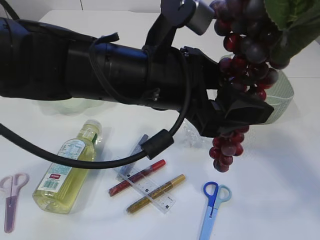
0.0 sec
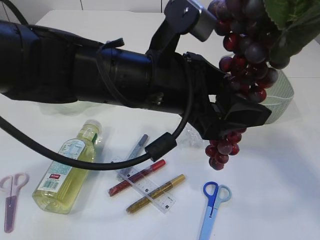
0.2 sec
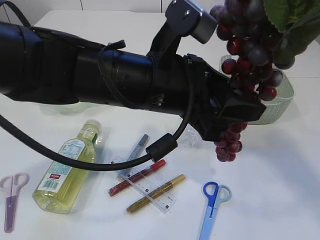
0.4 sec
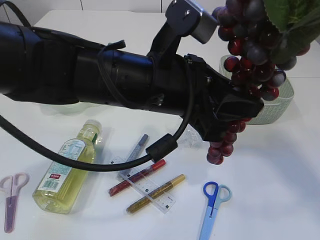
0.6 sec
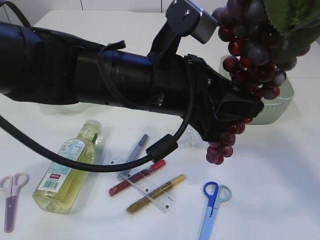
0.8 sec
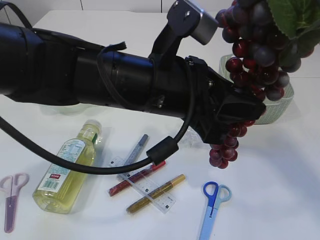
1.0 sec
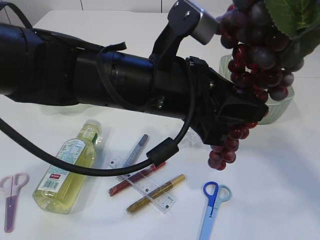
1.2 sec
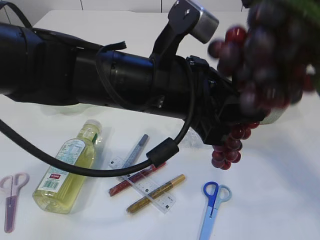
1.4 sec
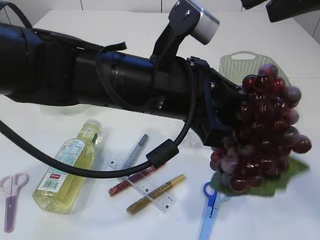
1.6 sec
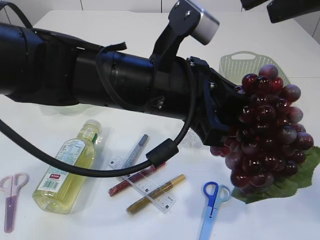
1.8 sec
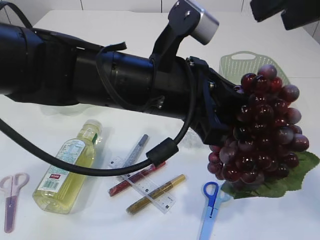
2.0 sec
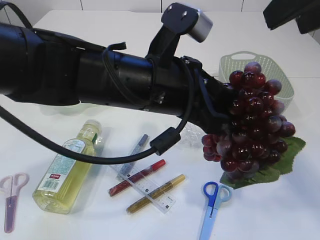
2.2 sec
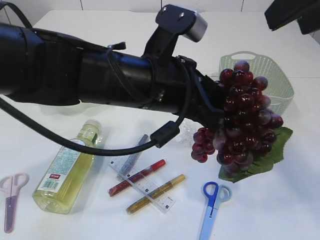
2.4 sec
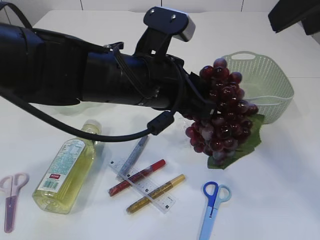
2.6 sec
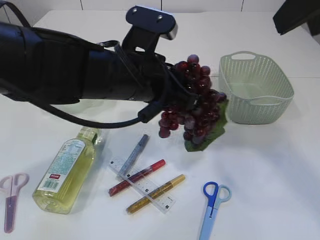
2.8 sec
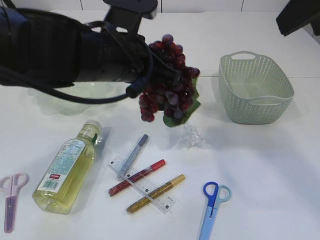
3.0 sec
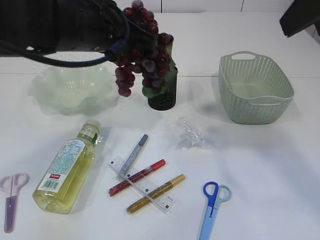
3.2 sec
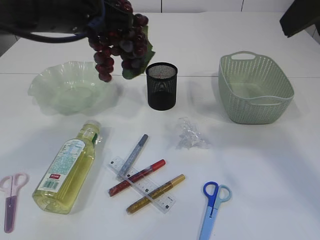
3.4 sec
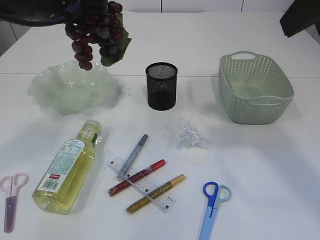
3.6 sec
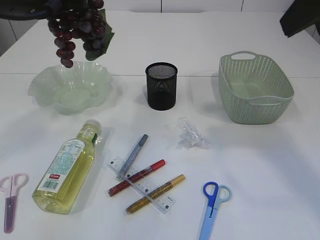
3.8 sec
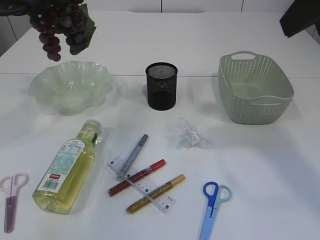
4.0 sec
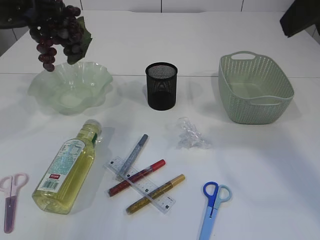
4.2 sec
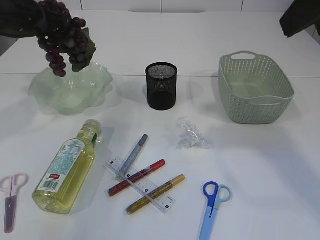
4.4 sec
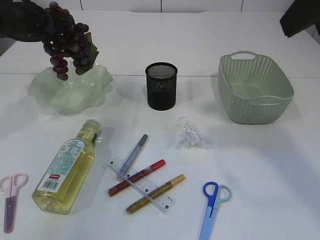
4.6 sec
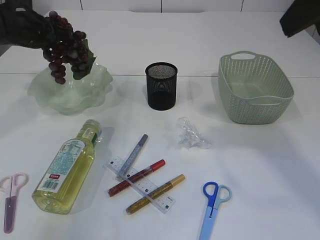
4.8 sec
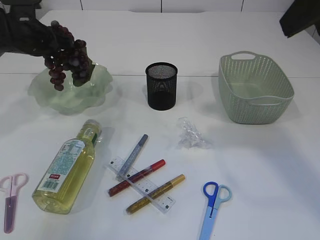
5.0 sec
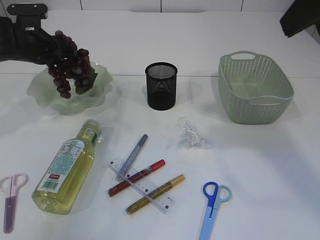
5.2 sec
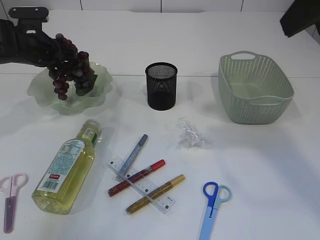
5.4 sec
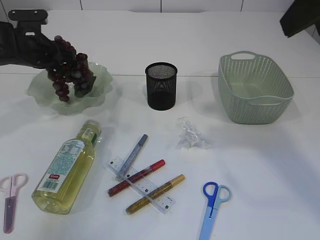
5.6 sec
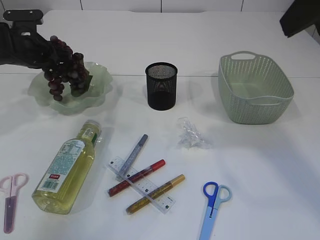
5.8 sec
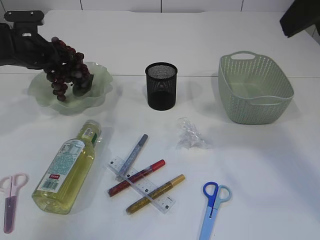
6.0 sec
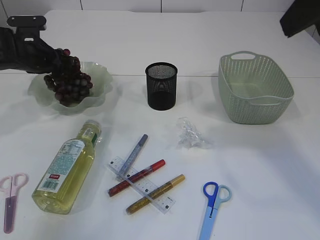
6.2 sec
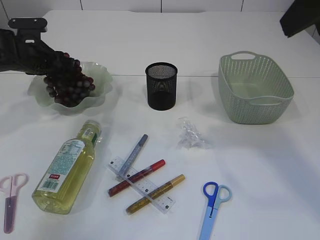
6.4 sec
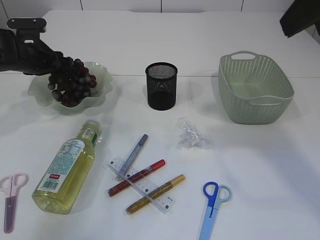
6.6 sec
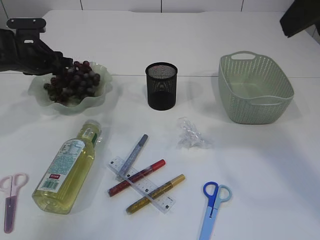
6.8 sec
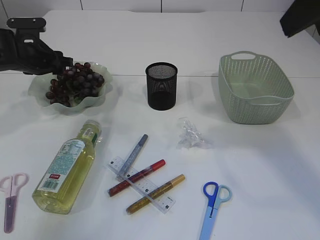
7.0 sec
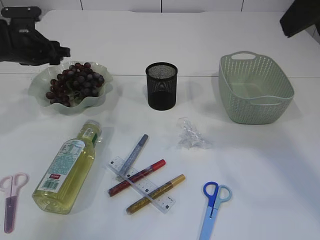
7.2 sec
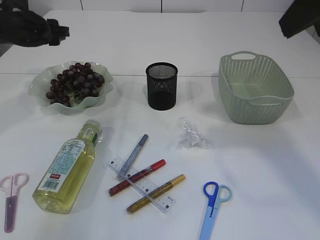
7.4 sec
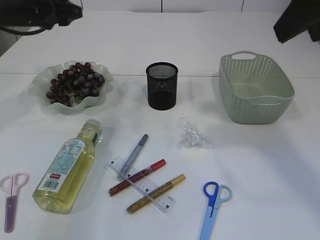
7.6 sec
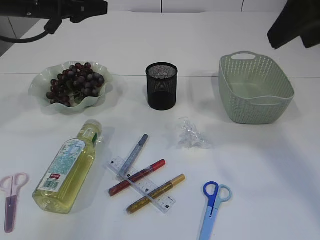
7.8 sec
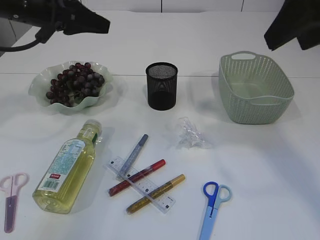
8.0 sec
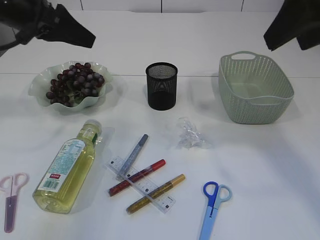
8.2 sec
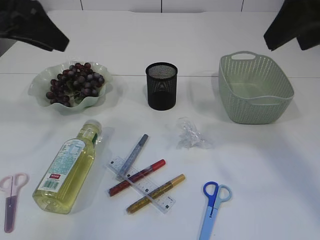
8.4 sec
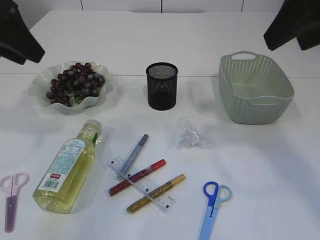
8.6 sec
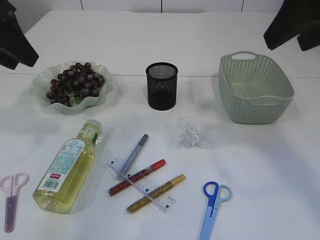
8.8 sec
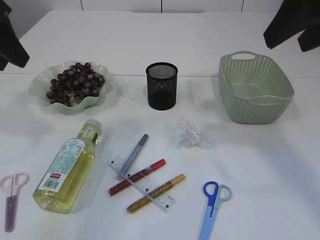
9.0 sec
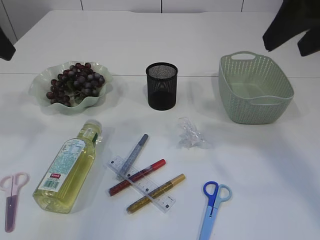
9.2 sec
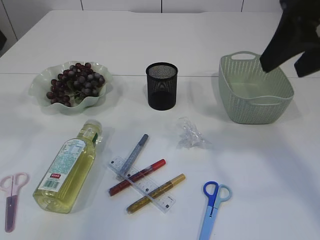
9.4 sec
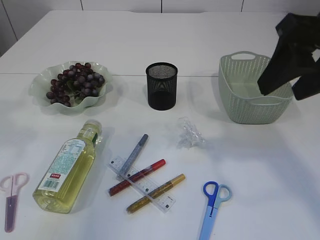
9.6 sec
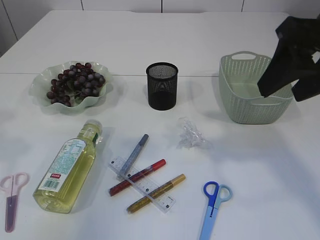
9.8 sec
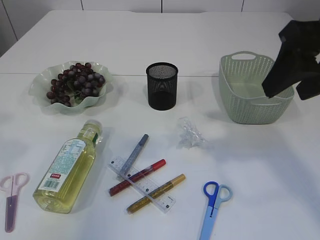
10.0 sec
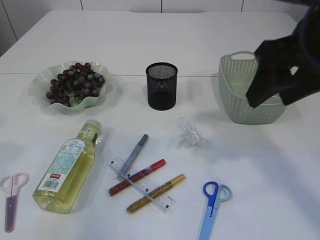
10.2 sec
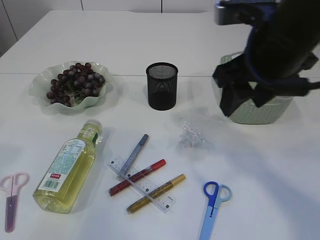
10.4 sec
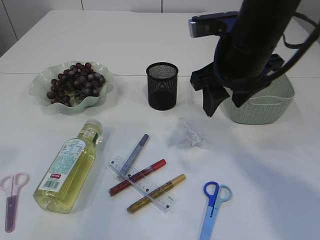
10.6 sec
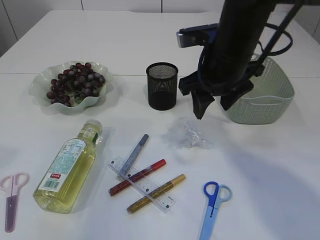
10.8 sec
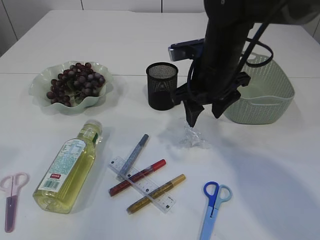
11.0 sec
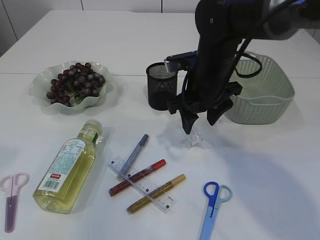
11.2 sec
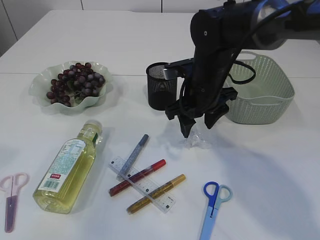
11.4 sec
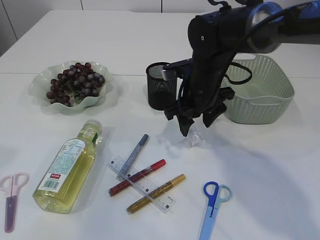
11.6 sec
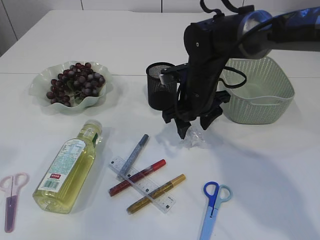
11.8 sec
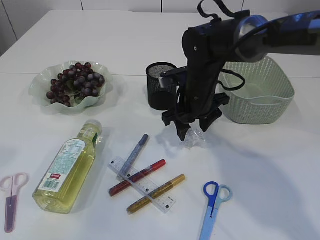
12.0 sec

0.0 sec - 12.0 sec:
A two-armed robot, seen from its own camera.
Step, 0.0 sec - 2.2 sec: Hand over the grapes.
Step, 2.4 sec - 7.4 sec: Place the grapes in the plate.
0.0 sec - 1.6 sec: The right gripper opens up; the left gripper closes.
1.6 sec - 3.0 sec: The left gripper moves forward and to the left, some 10 cm.
3.0 sec - 4.4 sec: The left gripper shifts approximately 25 cm to the left and forward.
4.4 sec - 6.0 sec: The left gripper goes roughly 10 cm downward and forward.
6.0 sec - 7.6 sec: The left gripper is displaced upward by about 10 cm.
7.6 sec - 9.0 sec: The left gripper moves backward and upward, some 15 cm.
9.0 sec - 10.4 sec: The left gripper heads backward and upward, covering about 15 cm; the right gripper goes about 10 cm downward and to the left.
10.4 sec - 12.0 sec: The right gripper heads downward, forward and to the left, covering about 20 cm.

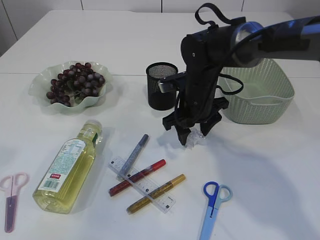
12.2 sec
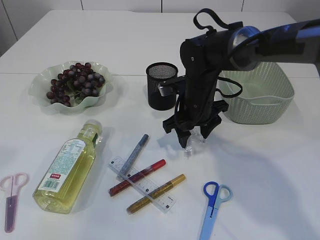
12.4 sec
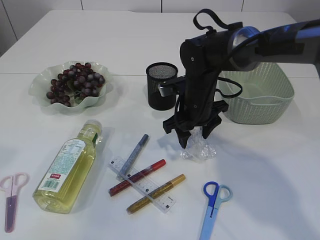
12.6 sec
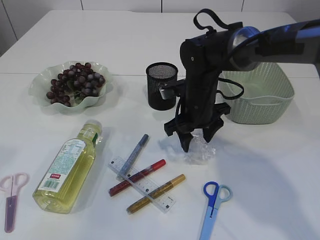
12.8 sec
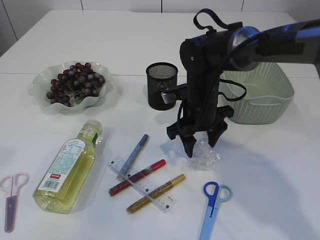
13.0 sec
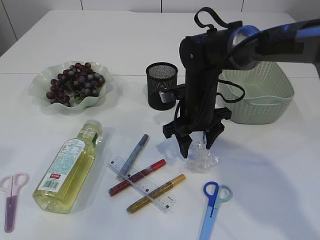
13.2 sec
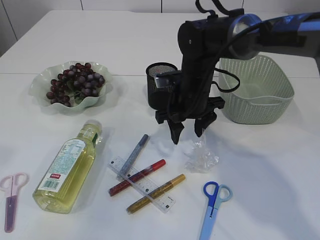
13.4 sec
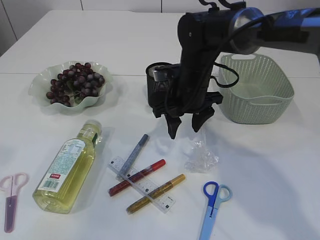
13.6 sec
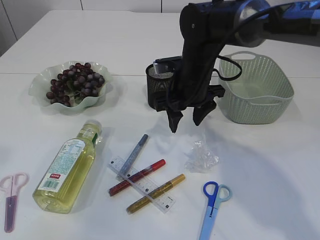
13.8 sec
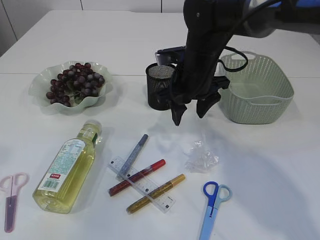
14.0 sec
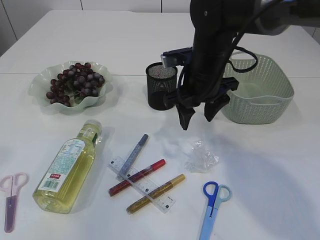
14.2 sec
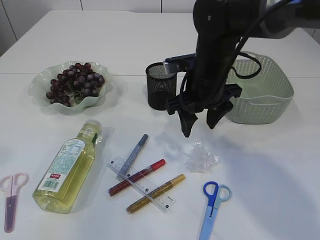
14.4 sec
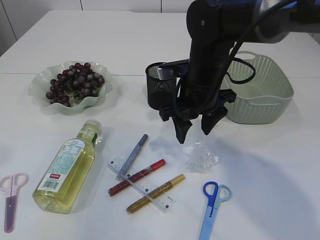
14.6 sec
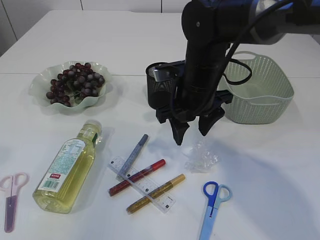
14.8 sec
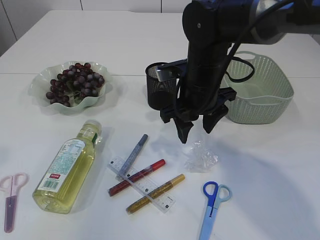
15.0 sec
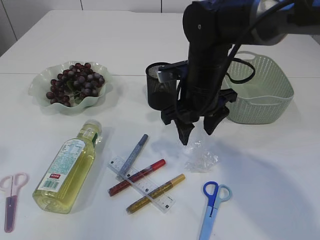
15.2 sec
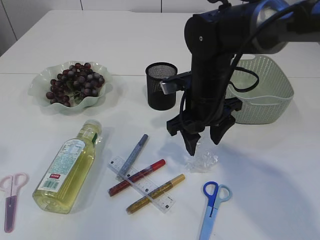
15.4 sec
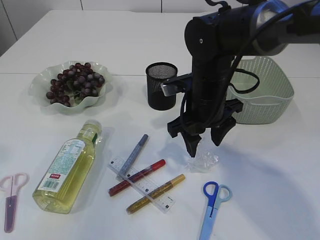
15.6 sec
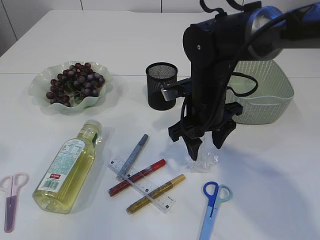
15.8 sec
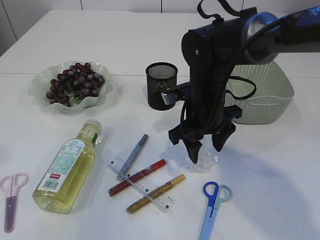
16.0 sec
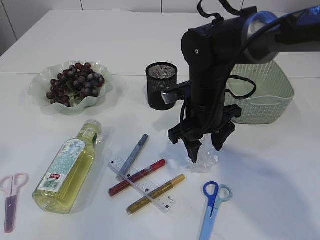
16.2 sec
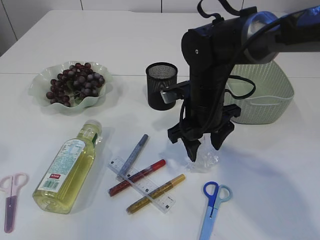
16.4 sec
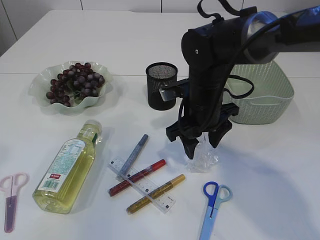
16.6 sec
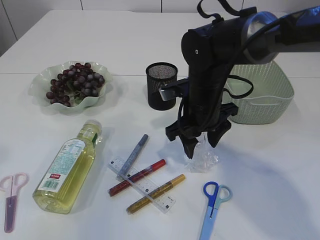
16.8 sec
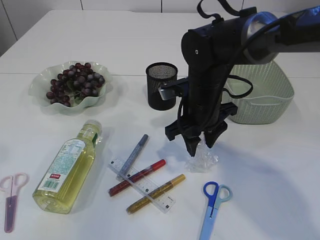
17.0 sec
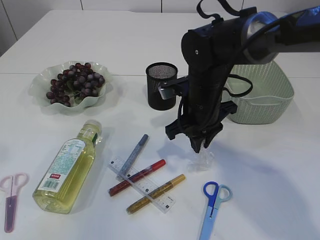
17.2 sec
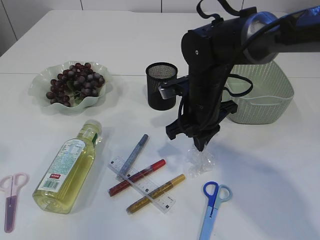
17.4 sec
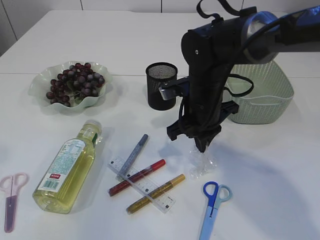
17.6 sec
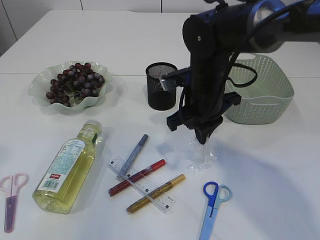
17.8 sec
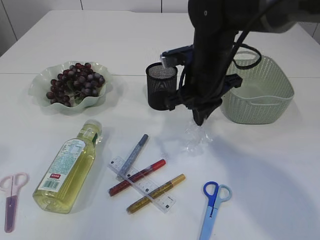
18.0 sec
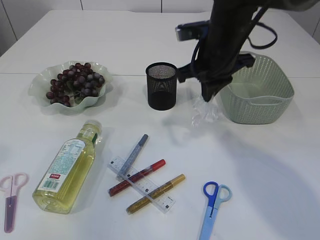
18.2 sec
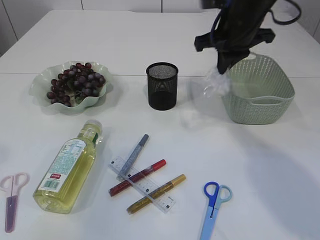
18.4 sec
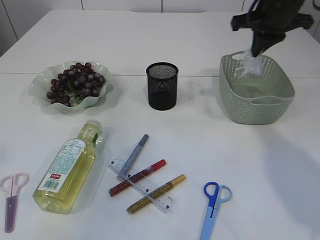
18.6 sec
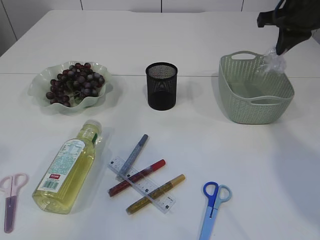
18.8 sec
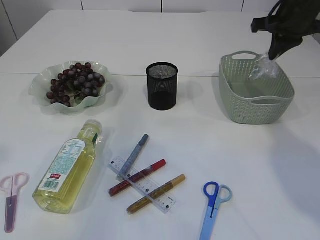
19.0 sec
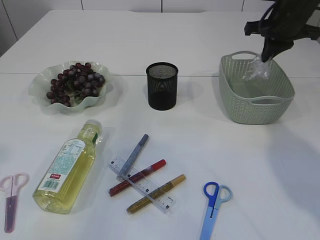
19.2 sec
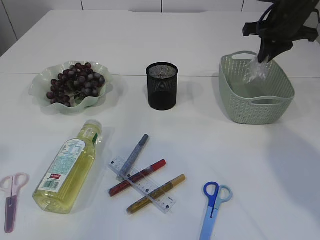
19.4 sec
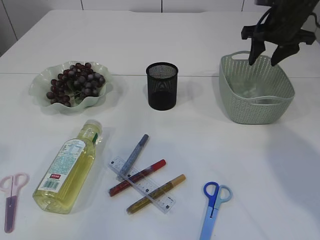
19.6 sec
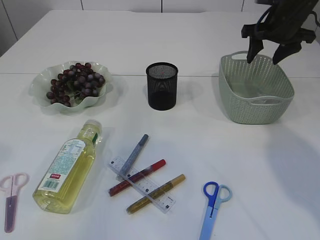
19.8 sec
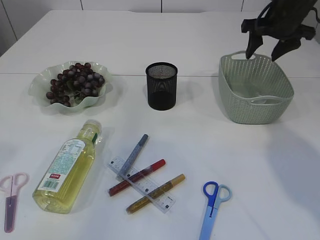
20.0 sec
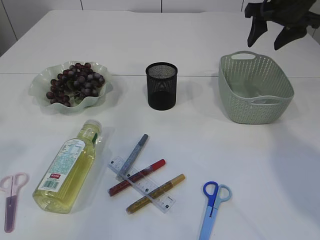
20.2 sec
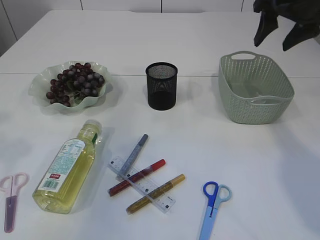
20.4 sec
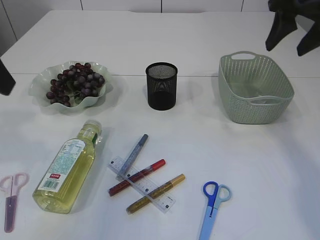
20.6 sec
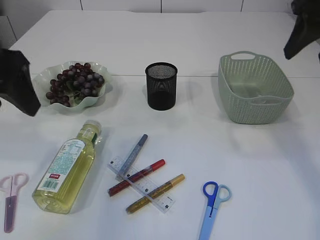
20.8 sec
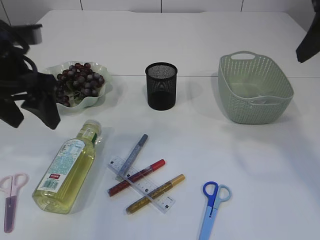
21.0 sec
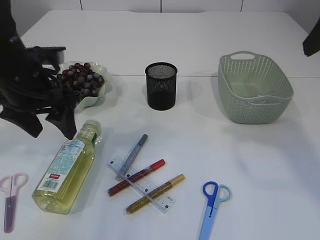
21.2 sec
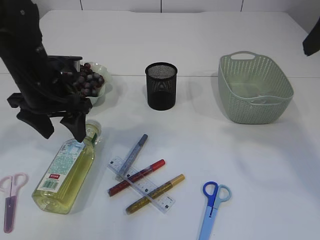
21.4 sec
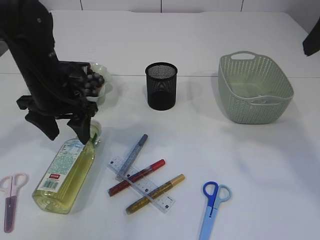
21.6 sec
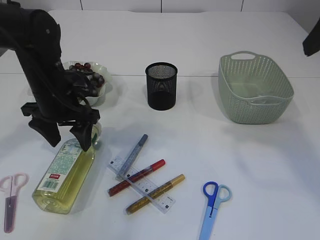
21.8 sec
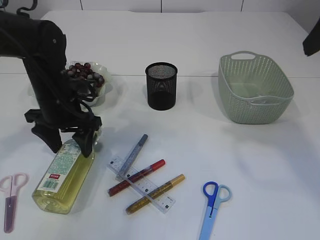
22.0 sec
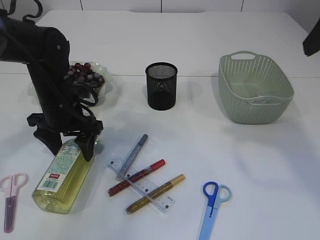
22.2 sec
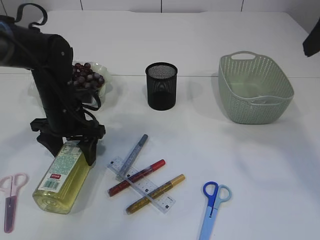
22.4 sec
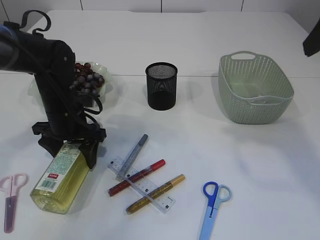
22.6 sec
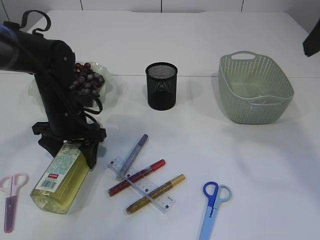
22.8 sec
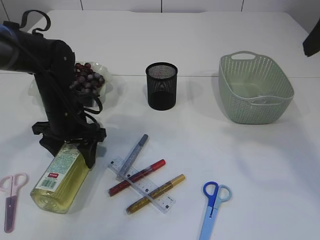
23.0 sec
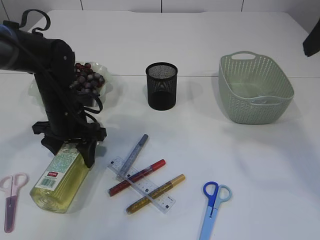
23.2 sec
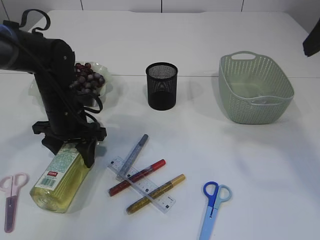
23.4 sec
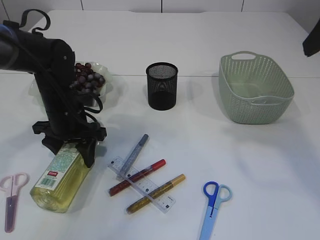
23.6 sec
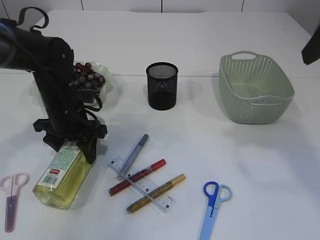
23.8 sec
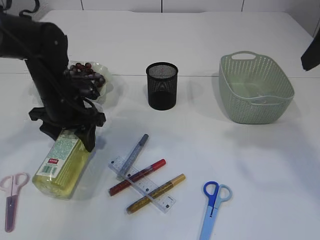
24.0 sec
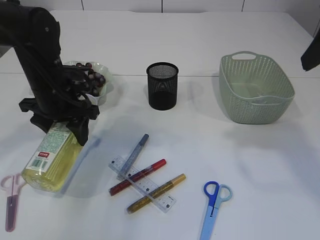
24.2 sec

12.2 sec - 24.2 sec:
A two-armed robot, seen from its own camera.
Step, 12.2 sec - 18.2 sec: Pick up the plastic.
Step, 18.4 sec - 20.0 sec: Place the plastic in the basket.
12.2 sec - 13.8 sec: There are only small adjustments of the grippers.
13.8 sec - 16.6 sec: The grippers move only a little.
16.6 sec - 18.2 sec: The right gripper moves upward, some 10 cm, and closes up.
18.2 sec - 19.8 sec: The right gripper is displaced to the right and forward by approximately 15 cm, and opens.
19.8 sec - 21.2 sec: The left gripper shifts roughly 25 cm downward, forward and to the right, and opens up, while the right gripper is displaced backward and upward by about 25 cm.
21.2 sec - 22.6 sec: The left gripper travels downward and forward by some 15 cm.
22.6 sec - 24.2 sec: The left gripper heads upward, covering approximately 5 cm.
